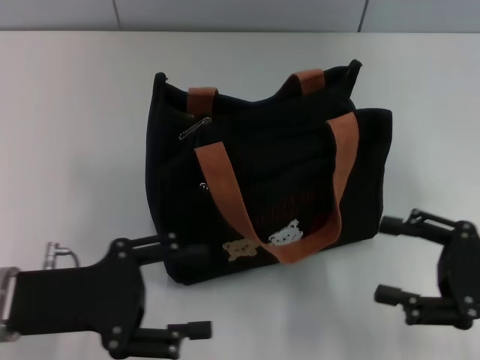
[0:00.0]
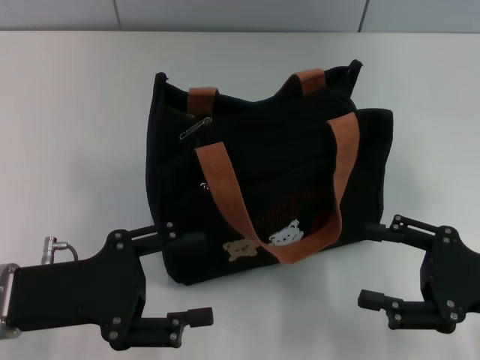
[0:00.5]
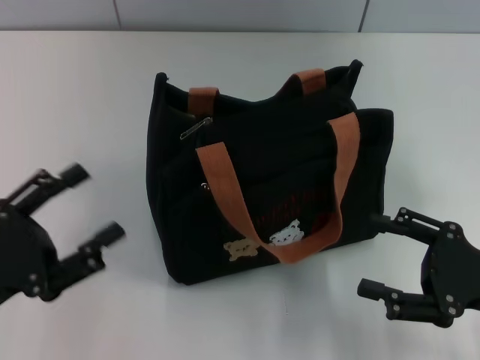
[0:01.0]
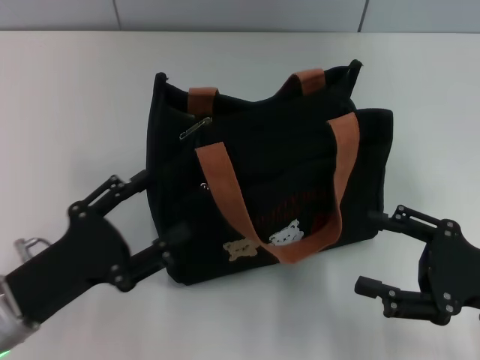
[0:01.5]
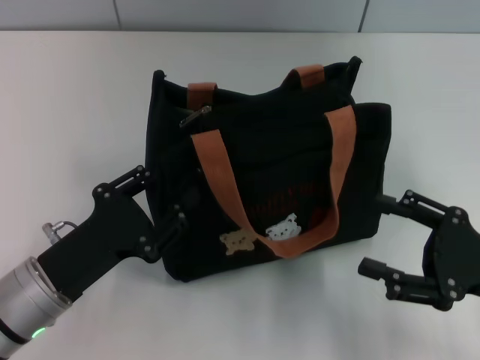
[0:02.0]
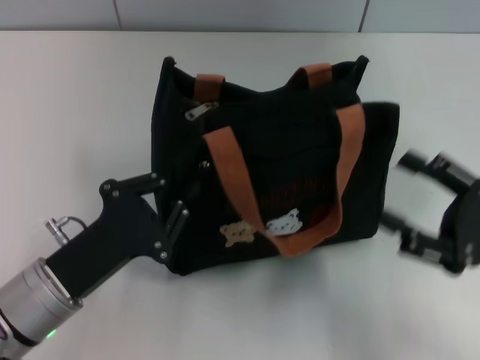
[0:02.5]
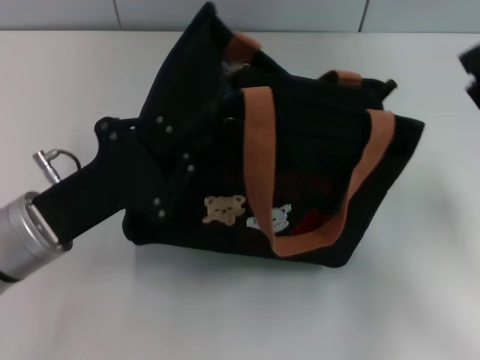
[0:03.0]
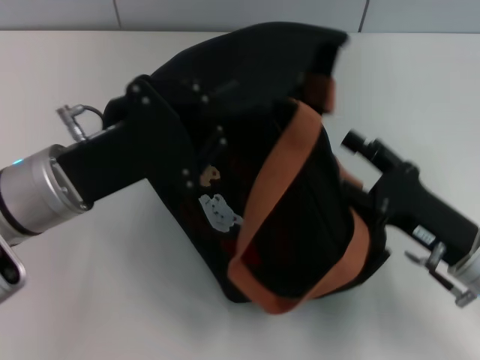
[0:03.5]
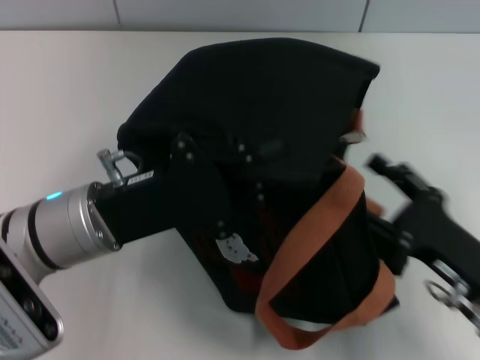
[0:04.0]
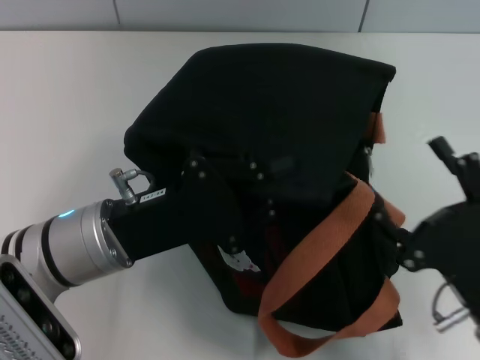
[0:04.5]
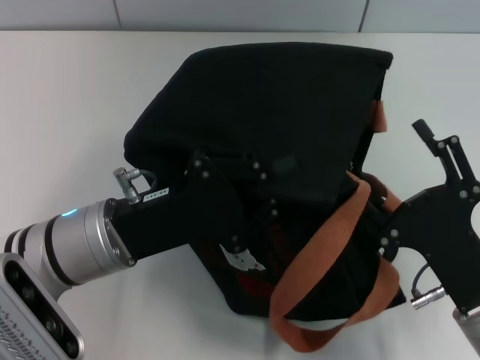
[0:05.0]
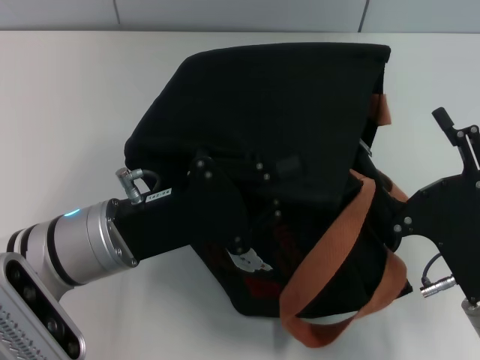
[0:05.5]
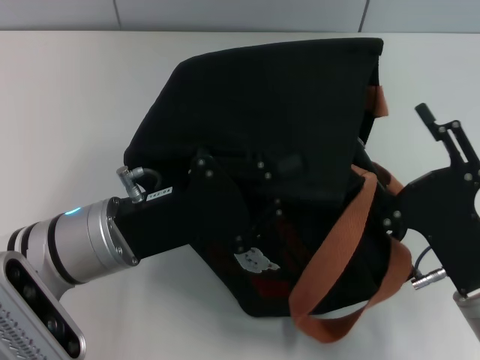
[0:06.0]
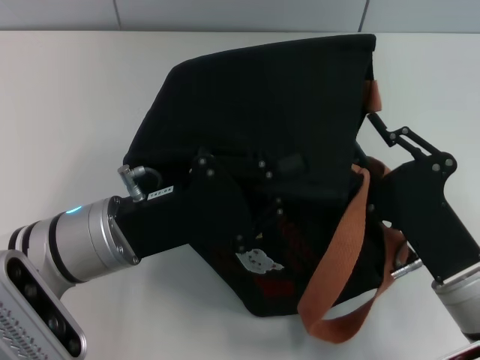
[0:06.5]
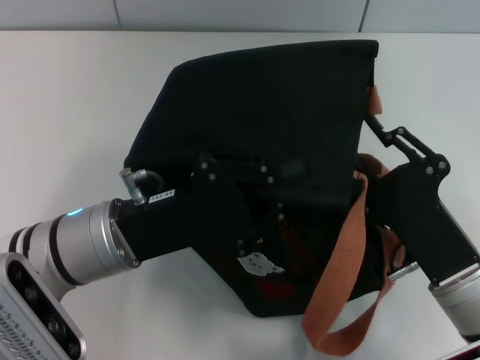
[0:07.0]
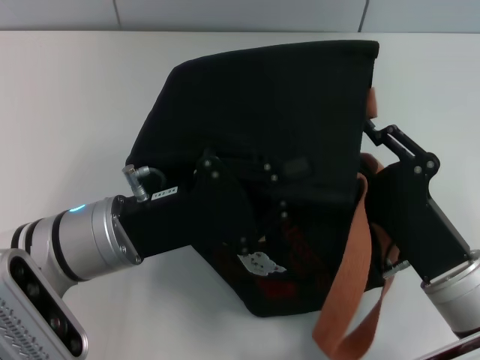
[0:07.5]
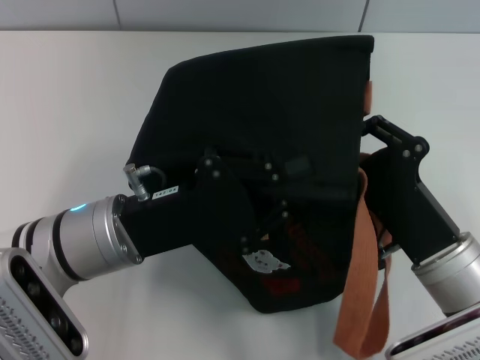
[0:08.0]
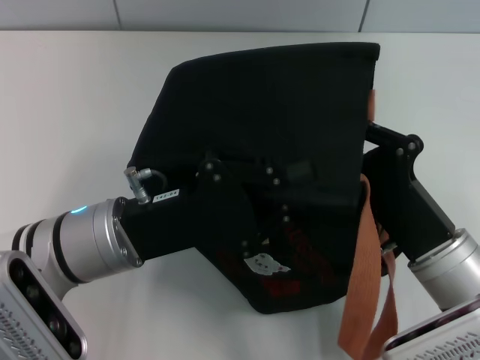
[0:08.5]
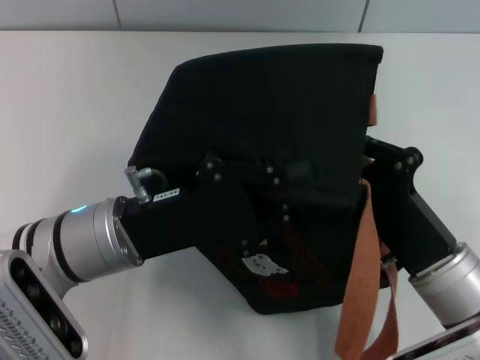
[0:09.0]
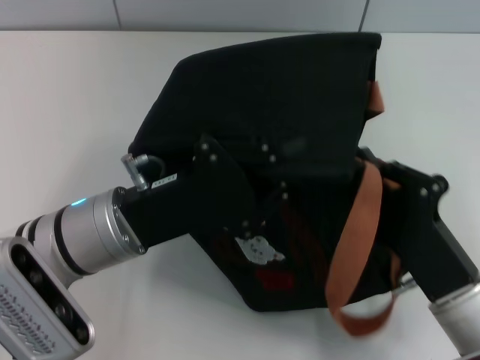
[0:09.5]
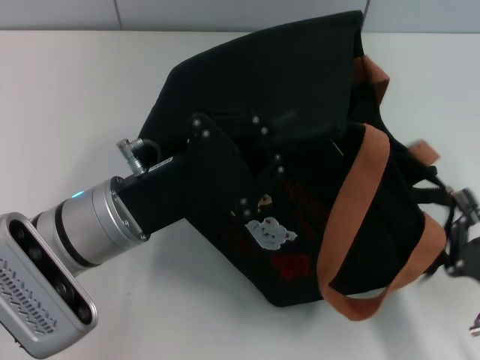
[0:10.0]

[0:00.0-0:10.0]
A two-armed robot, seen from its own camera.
0:00.0 to 0:02.0: The left gripper moves roughly 5 cm.
0:02.0 to 0:04.0: The right gripper ends up some 5 cm from where it was. Meanwhile the left gripper is displaced upward and forward by roughly 10 cm, and closes its fingers.
0:06.0 to 0:08.0: The right gripper closes up.
0:08.0 to 0:10.0: The right gripper moves backward and to the right, approximately 10 cm, and closes.

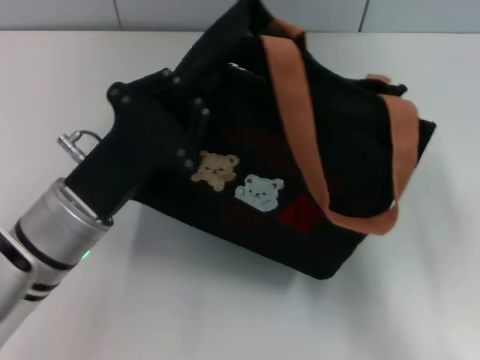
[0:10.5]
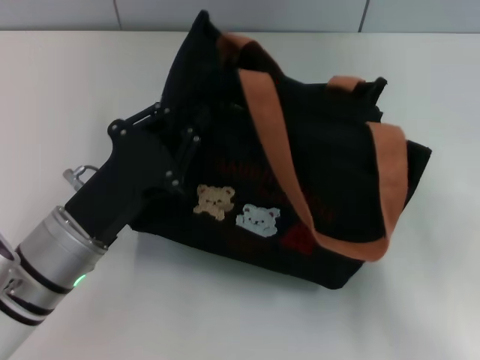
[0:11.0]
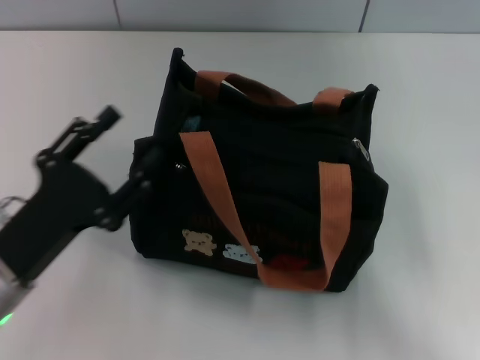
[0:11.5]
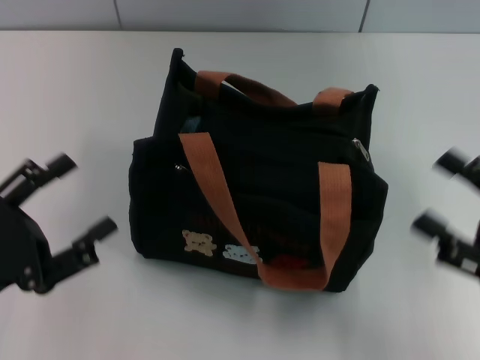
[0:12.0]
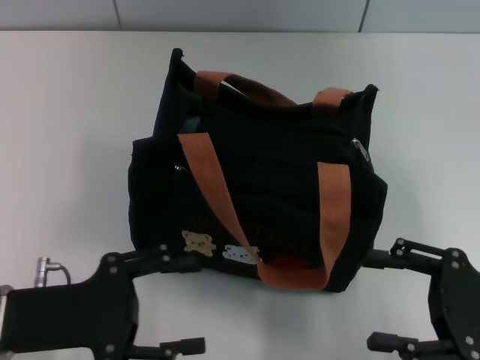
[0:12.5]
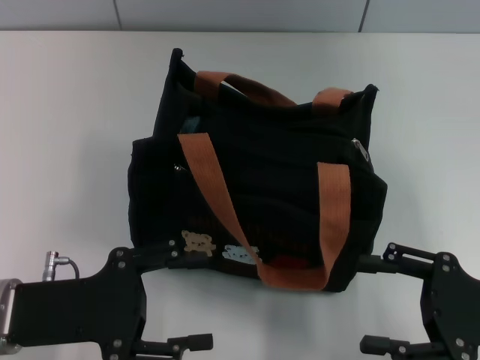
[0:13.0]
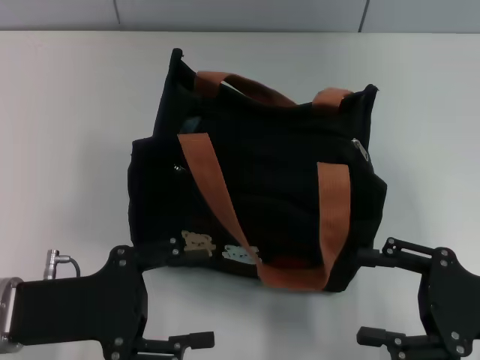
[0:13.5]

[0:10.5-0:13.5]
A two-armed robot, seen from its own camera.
Step, 0:10.5 to 0:11.0: Grab the bag with your left hand.
0:10.5 to 0:12.0: The right gripper shifts some 5 cm forward, and opens its fingers. The left gripper travels to the left and backward by approximately 15 cm, and opens.
0:12.0 to 0:13.5: The left gripper heads to the right, covering roughly 5 cm.

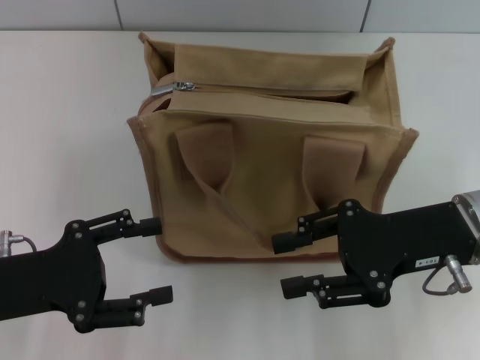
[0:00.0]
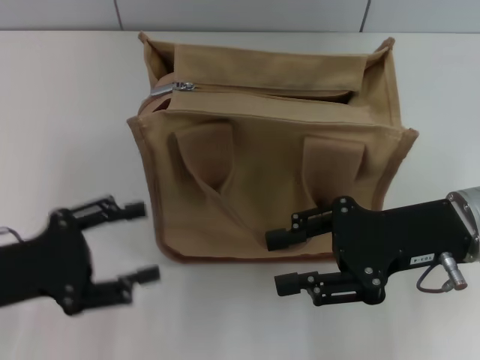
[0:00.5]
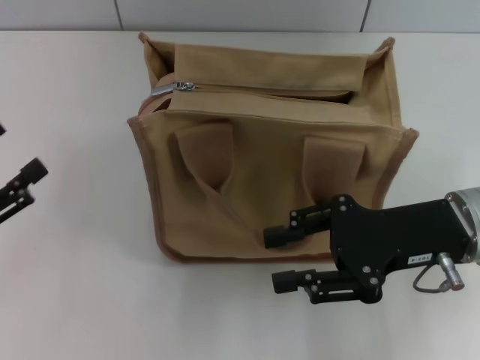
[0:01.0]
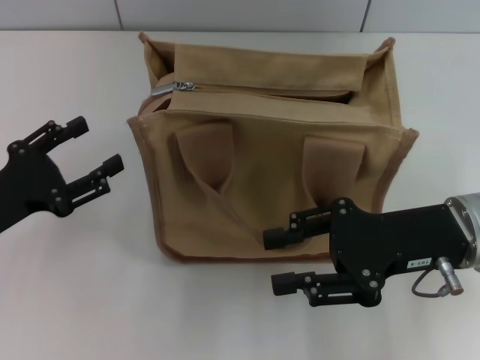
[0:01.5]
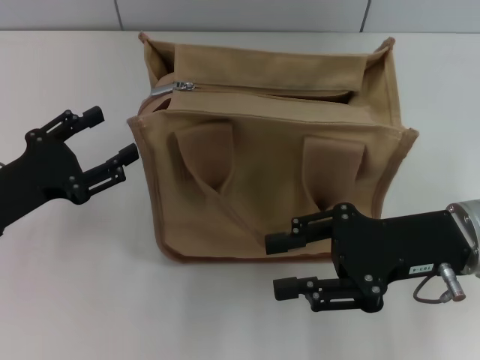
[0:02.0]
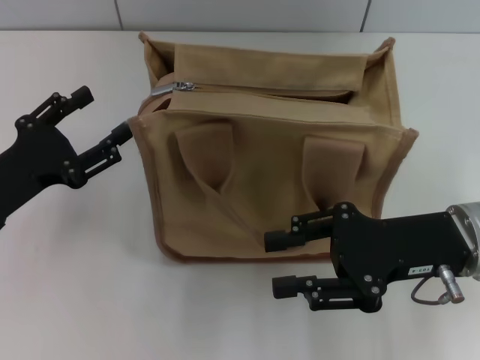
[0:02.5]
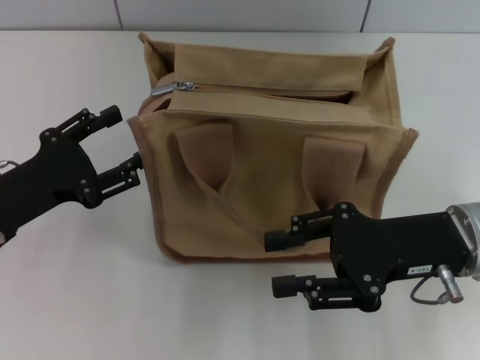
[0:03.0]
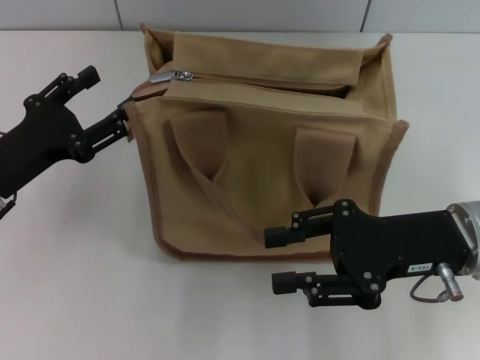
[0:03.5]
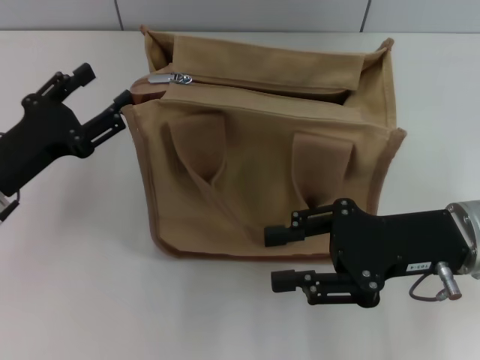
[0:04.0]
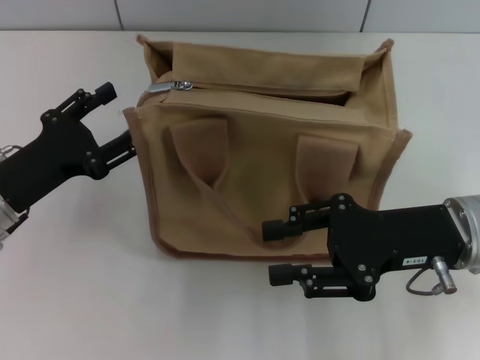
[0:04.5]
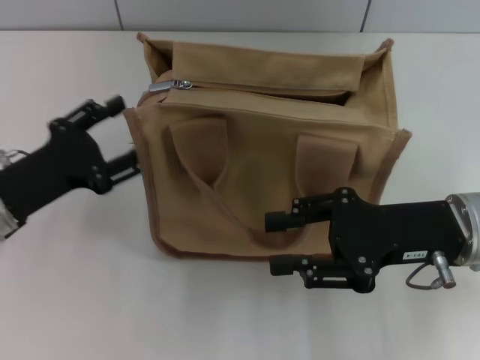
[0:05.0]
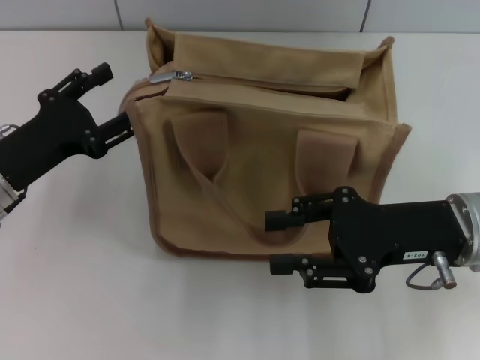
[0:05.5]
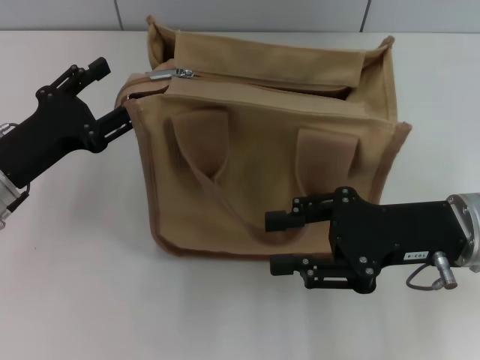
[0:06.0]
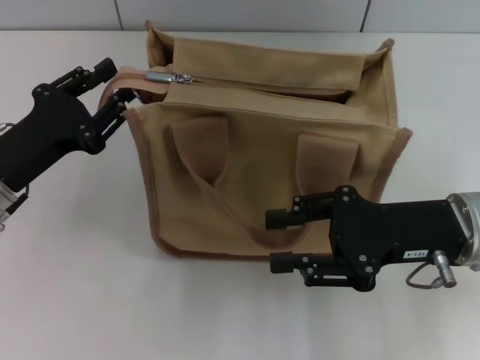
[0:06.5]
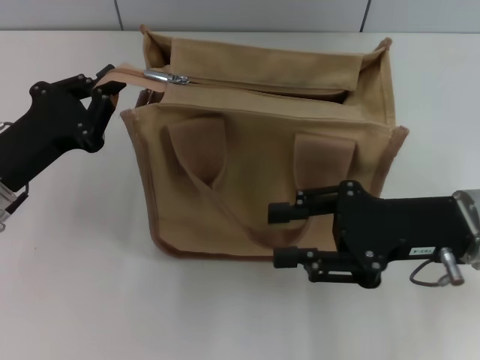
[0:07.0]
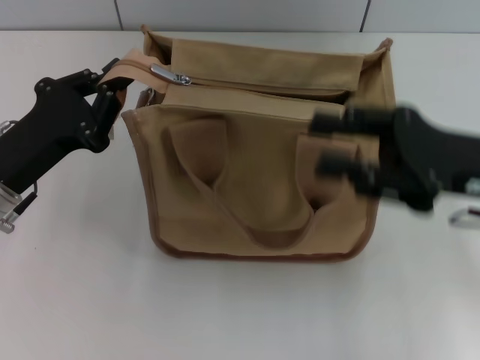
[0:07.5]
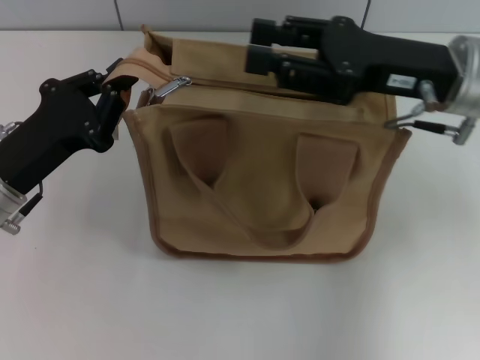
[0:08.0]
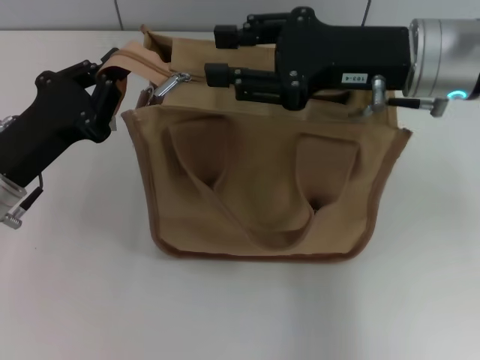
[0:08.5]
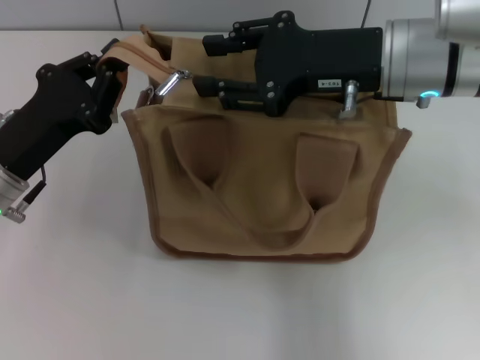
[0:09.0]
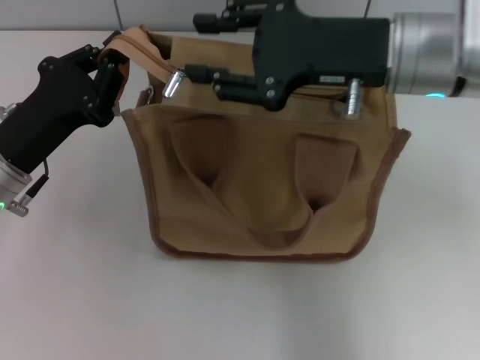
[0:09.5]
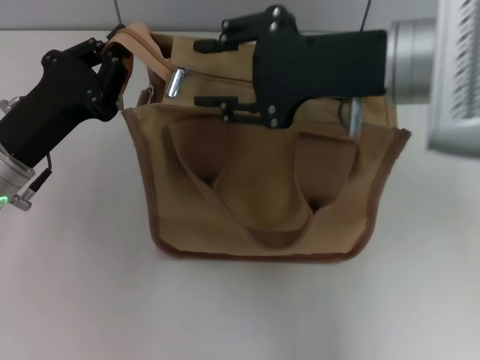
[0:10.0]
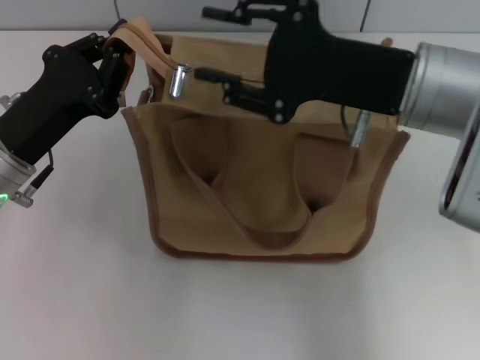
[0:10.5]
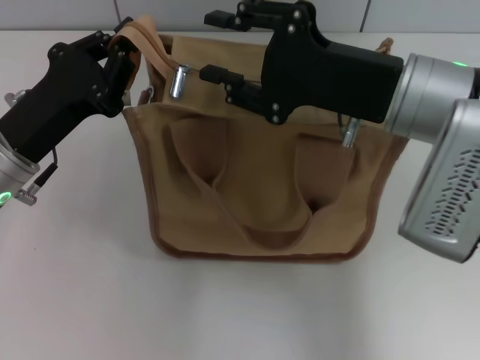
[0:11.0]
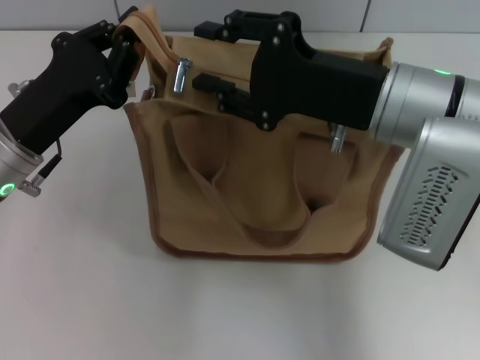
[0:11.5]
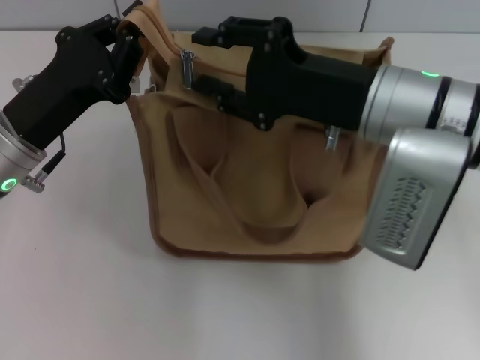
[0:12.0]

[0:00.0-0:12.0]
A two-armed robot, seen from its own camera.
0:00.0 to 0:02.0: The left gripper moves roughly 5 cm.
0:02.0 to 0:06.0: The grippers move only a little.
0:06.0 to 0:08.0: The left gripper closes up. The right gripper shifts some 10 cm upward and forward.
0:08.0 to 0:10.0: The right gripper shifts roughly 5 cm to the left.

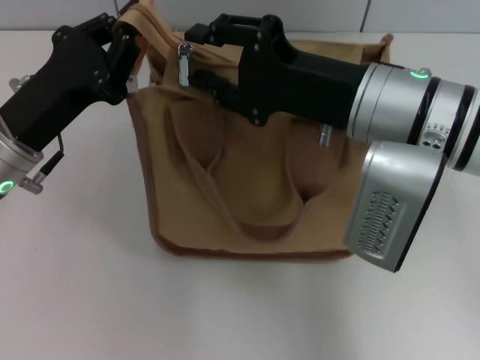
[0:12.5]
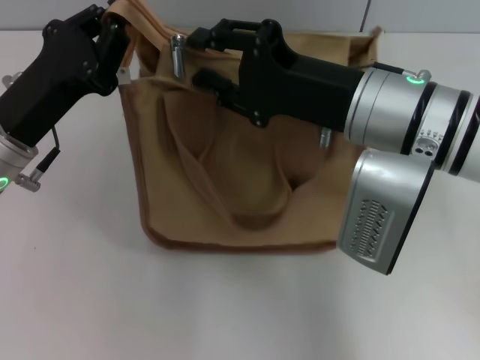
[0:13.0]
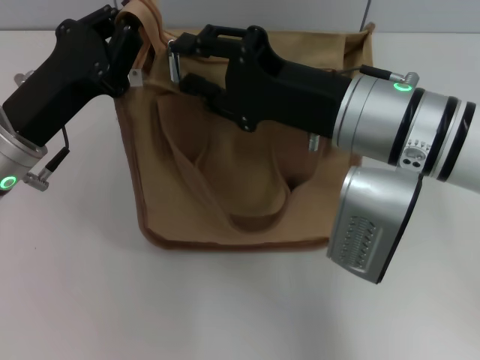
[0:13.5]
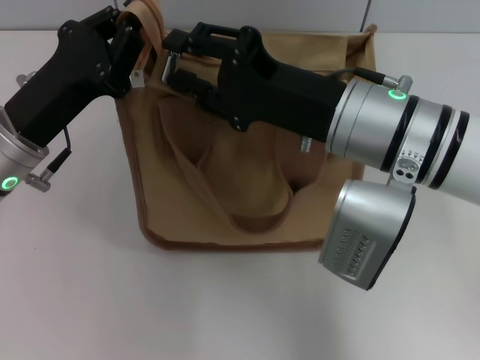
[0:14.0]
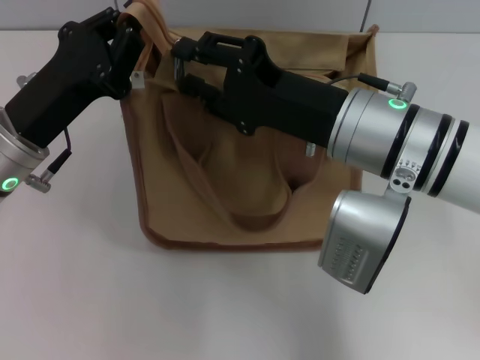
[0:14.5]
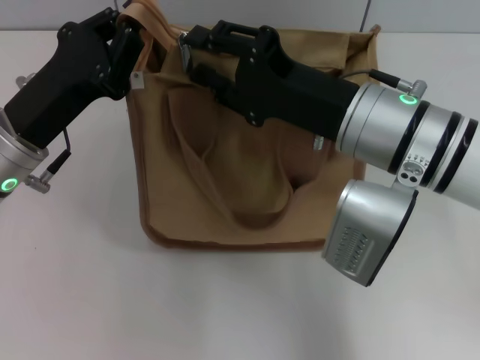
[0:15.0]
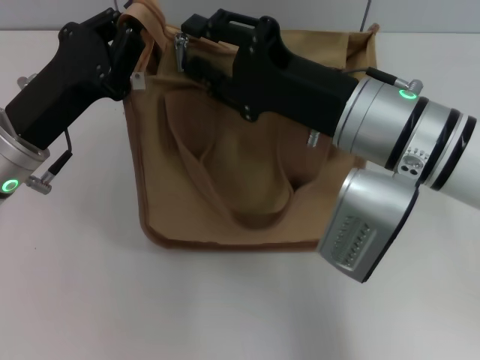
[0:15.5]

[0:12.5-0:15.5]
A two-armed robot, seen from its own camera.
0:14.0 to 0:15.5: The grippers make only small movements.
